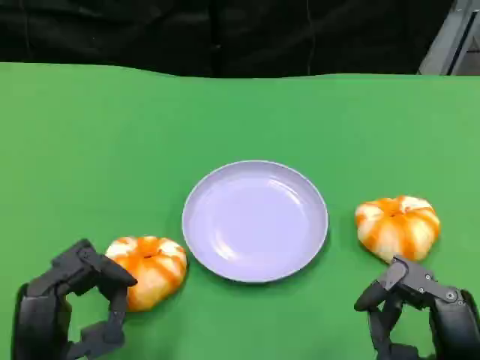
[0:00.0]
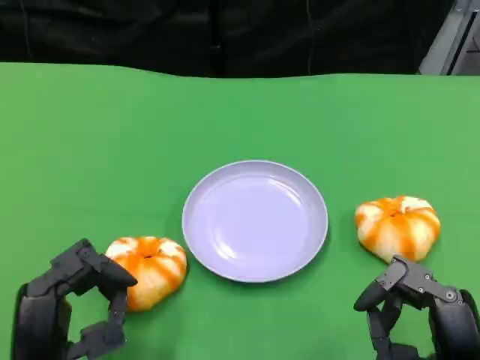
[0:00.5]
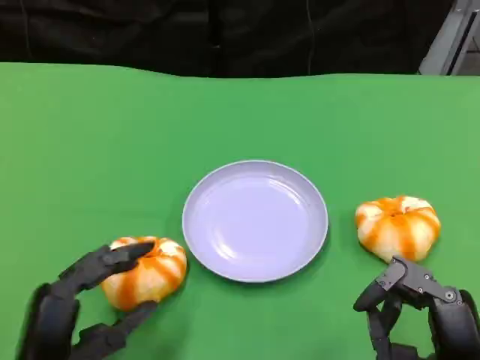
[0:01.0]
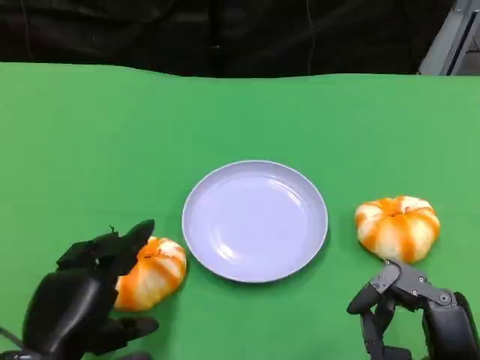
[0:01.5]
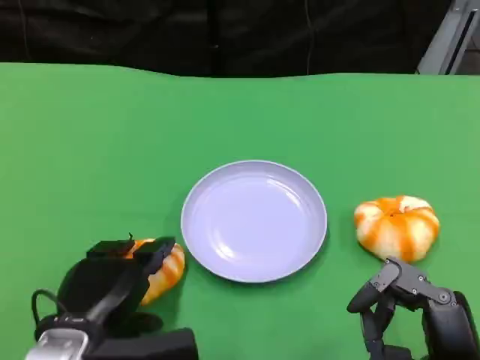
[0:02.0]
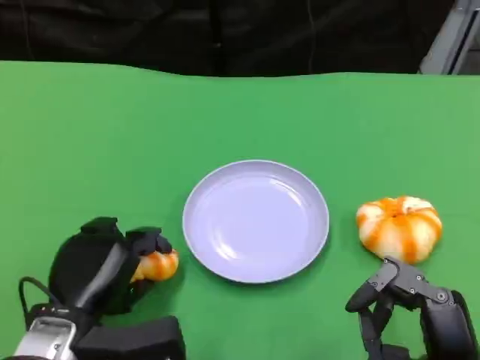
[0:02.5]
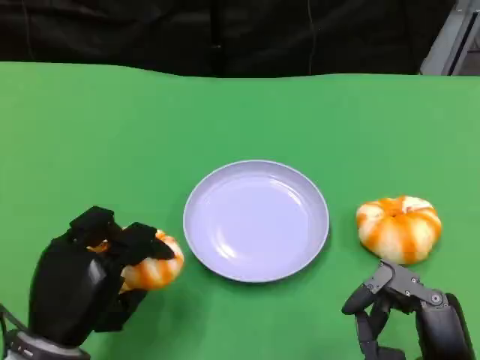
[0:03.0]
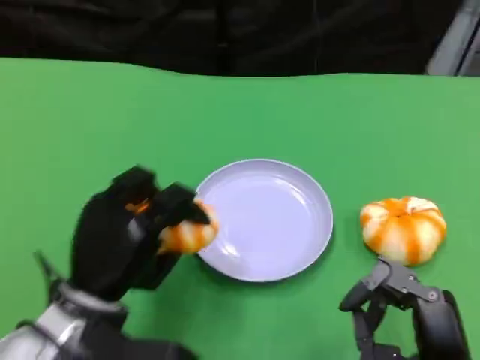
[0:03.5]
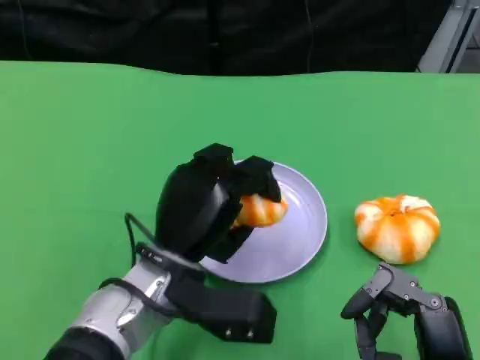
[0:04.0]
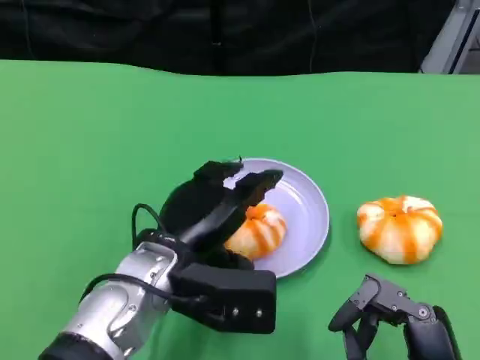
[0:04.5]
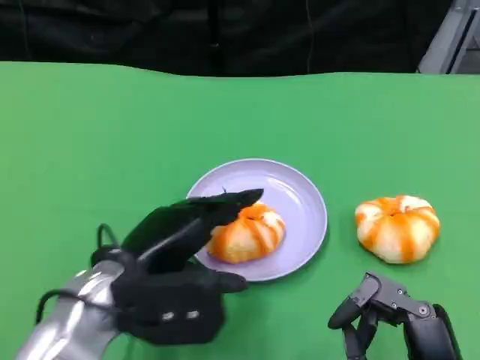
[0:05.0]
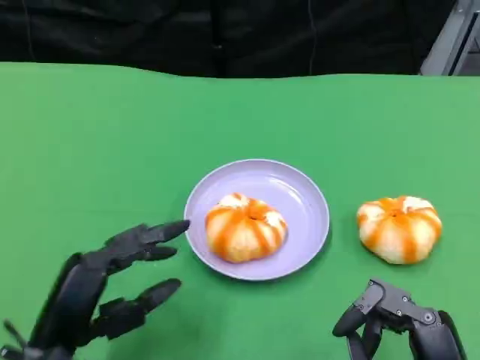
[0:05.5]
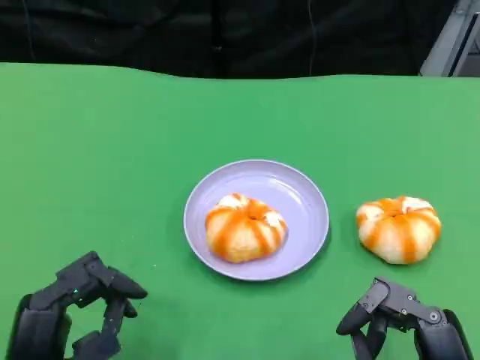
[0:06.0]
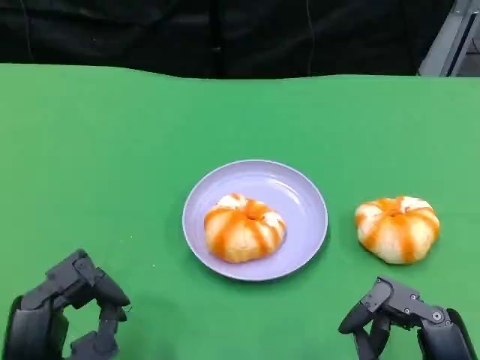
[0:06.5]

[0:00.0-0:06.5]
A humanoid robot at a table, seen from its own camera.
Task of the whole recording: Grasp the bread from the table and place it into the plate.
0:00.0 to 0:02.0: The left hand shifts approximately 5 cm forward.
0:02.0 to 0:04.5: The left hand shifts approximately 10 cm to the right and forward.
0:04.5 to 0:06.5: The left hand moves backward and to the left, some 15 cm.

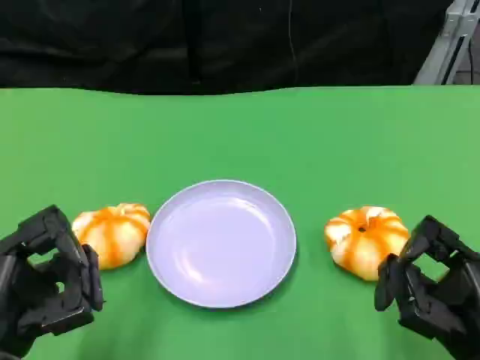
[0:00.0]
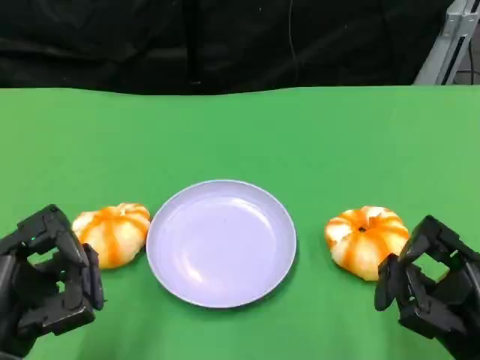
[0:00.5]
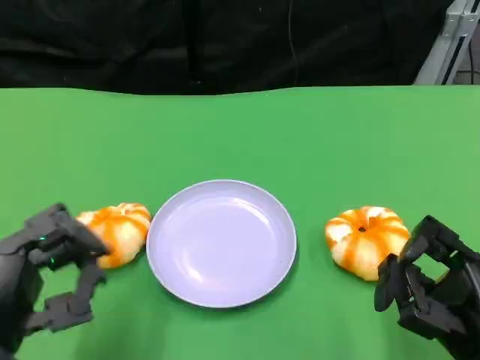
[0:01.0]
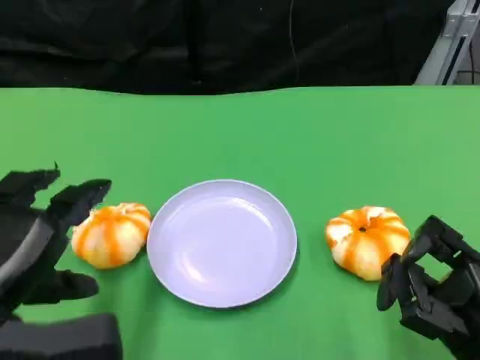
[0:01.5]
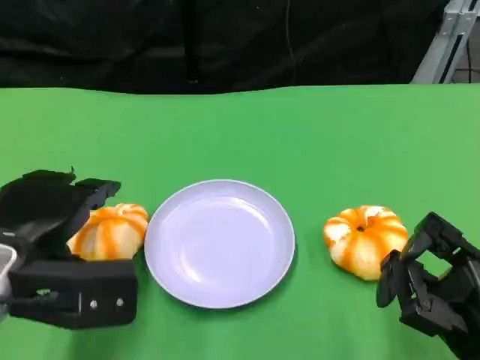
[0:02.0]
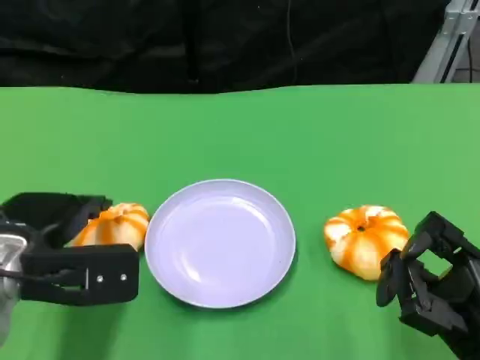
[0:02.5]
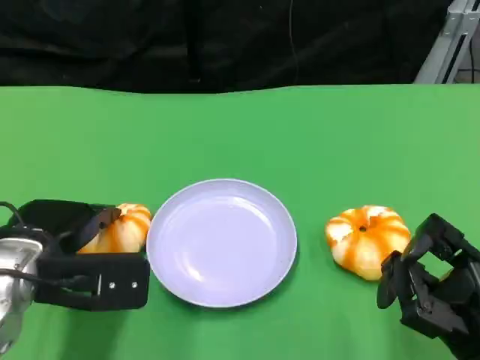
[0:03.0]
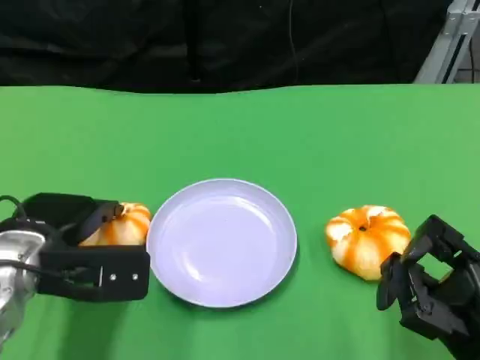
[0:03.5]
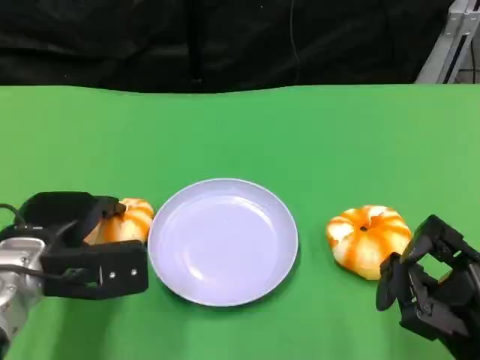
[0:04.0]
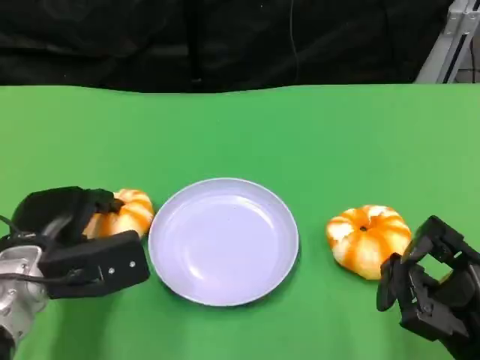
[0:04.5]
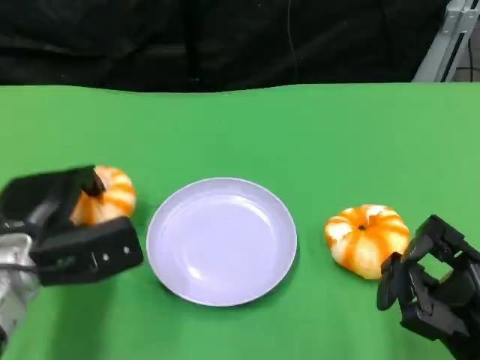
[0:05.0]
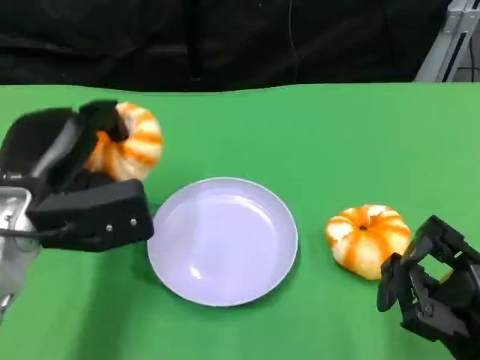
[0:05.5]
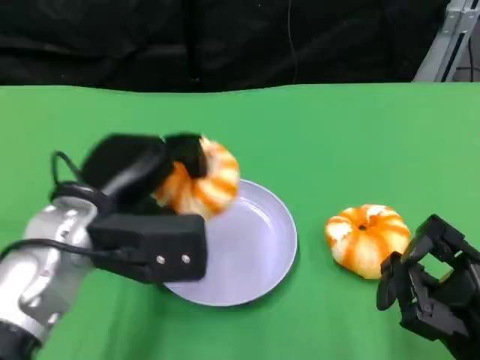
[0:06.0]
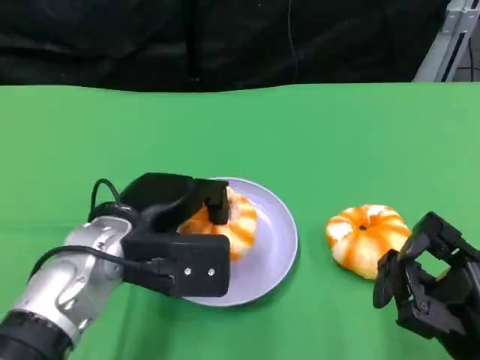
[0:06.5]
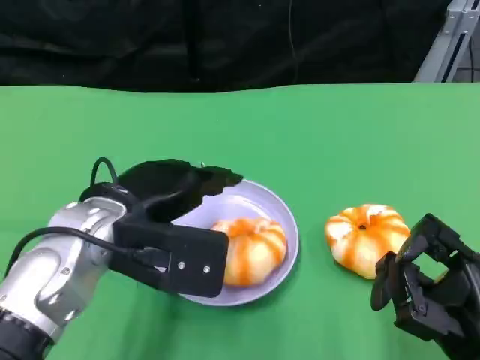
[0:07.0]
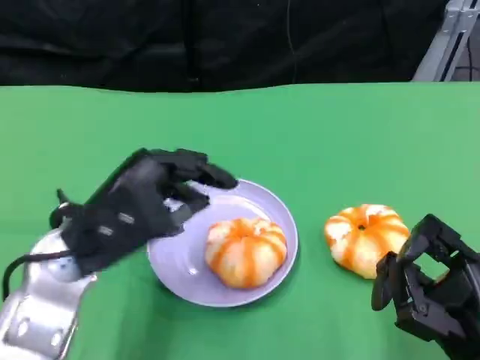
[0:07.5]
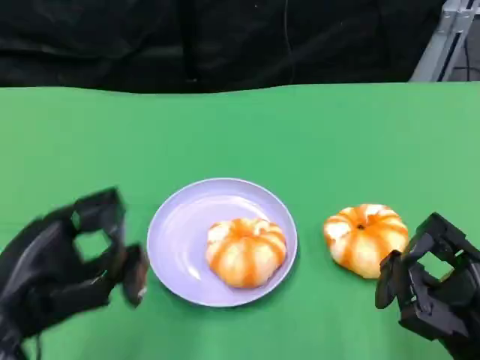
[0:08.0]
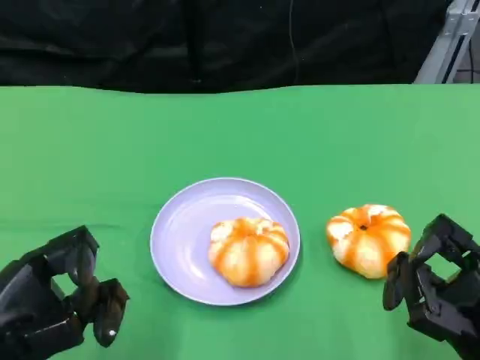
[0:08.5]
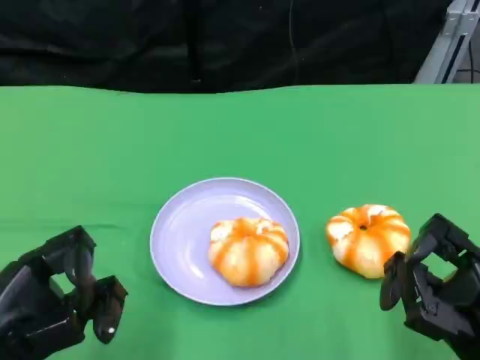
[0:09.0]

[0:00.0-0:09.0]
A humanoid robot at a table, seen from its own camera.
Task of the whole recording: Grasp the bread from the table and place it into the plate.
0:00.0 to 0:02.0: The left hand goes some 10 cm forward and upward.
0:02.0 to 0:04.5: The left hand heads downward, covering about 5 cm.
0:04.5 to 0:07.0: The left hand travels upward and to the right by roughly 10 cm.
0:07.0 to 0:09.0: The left hand goes about 15 cm backward, to the left and downward.
